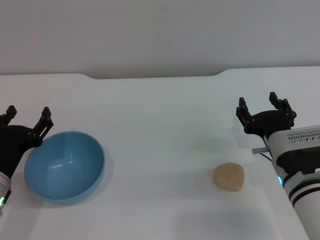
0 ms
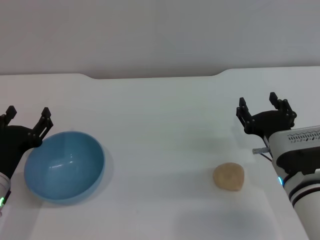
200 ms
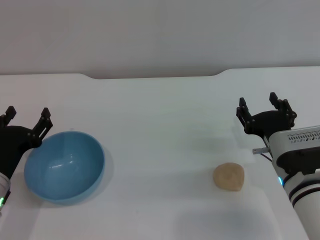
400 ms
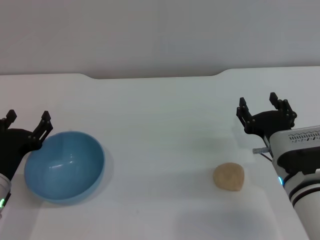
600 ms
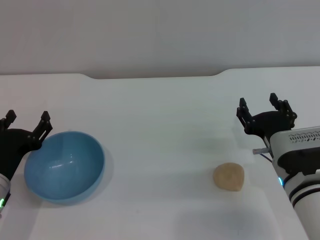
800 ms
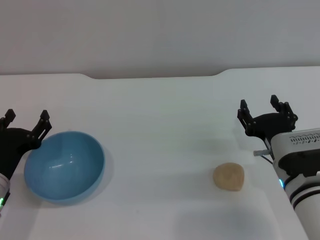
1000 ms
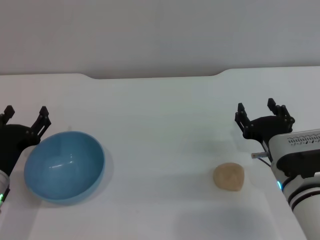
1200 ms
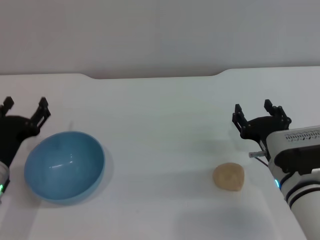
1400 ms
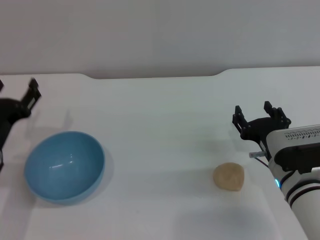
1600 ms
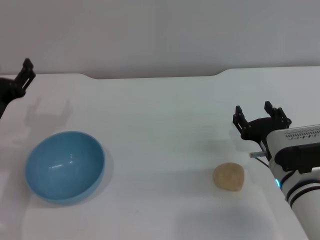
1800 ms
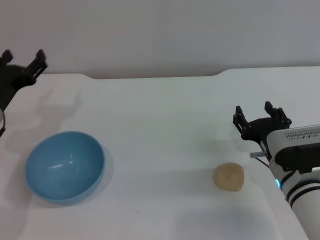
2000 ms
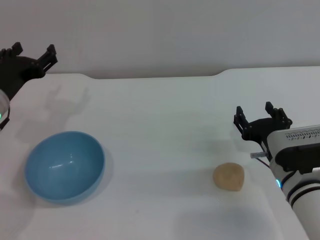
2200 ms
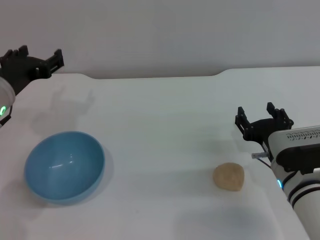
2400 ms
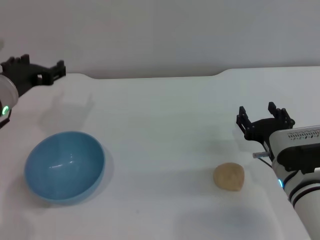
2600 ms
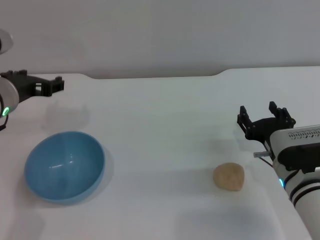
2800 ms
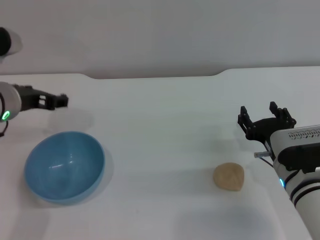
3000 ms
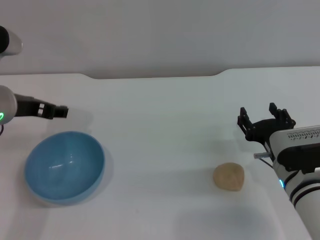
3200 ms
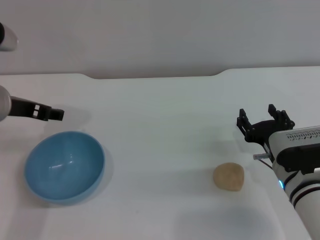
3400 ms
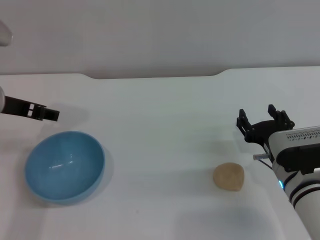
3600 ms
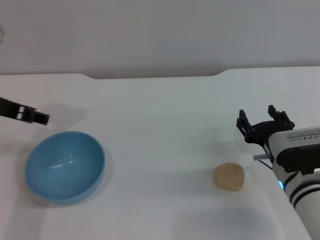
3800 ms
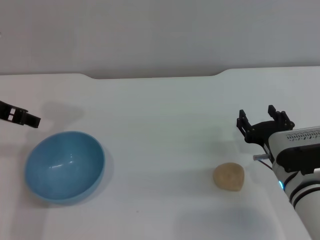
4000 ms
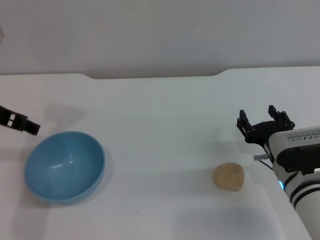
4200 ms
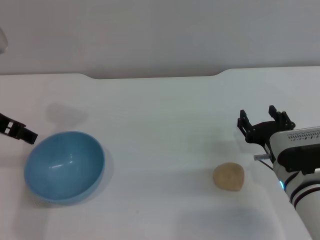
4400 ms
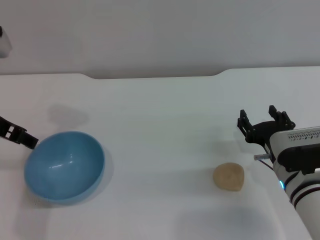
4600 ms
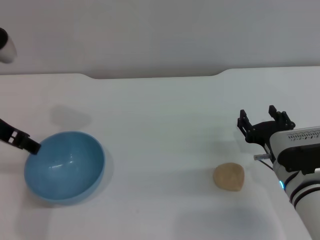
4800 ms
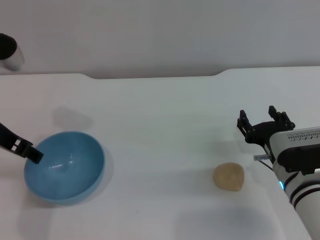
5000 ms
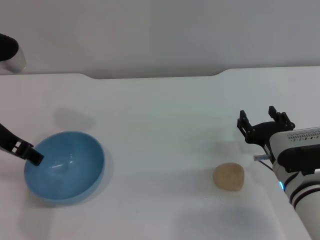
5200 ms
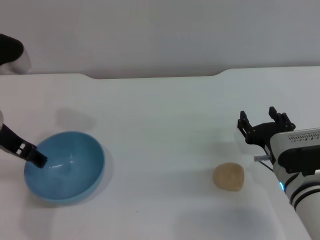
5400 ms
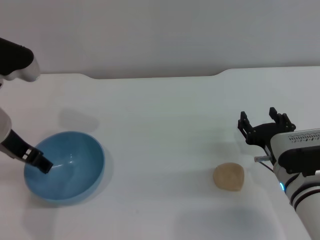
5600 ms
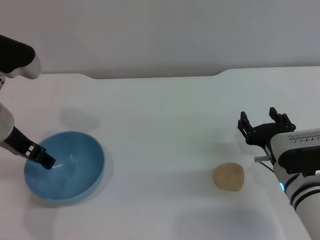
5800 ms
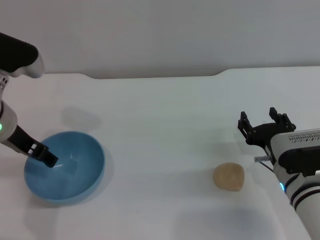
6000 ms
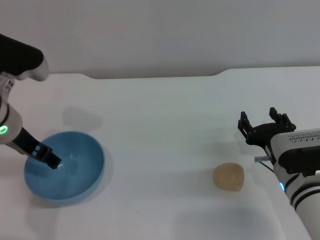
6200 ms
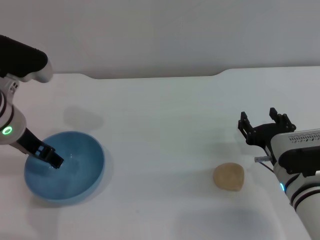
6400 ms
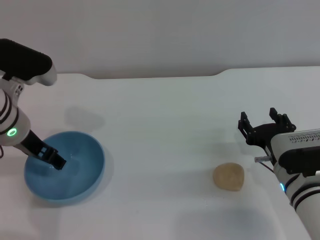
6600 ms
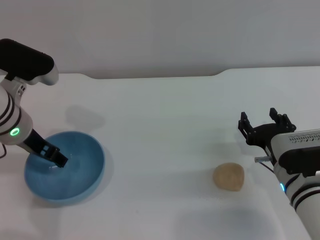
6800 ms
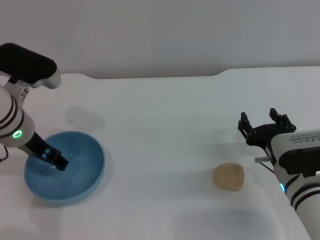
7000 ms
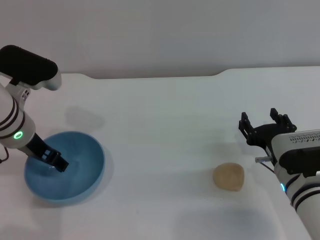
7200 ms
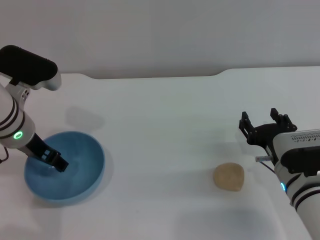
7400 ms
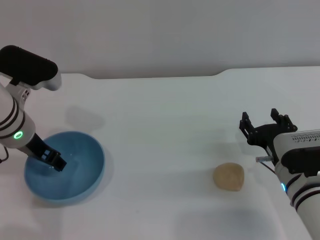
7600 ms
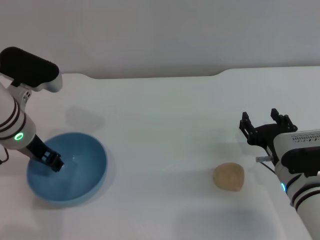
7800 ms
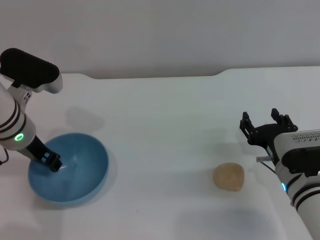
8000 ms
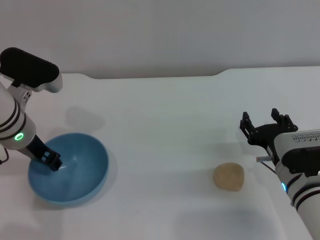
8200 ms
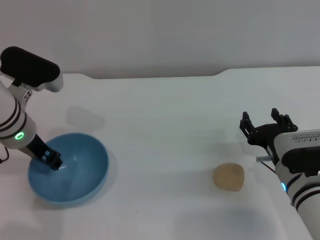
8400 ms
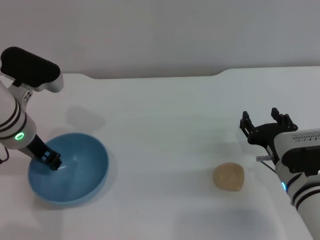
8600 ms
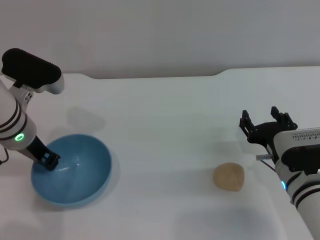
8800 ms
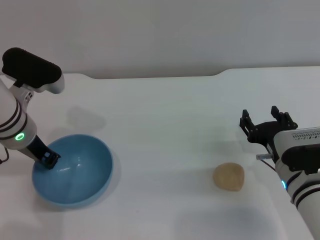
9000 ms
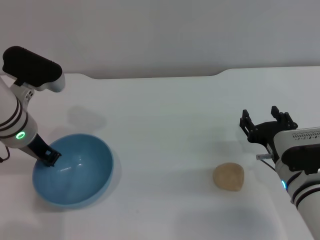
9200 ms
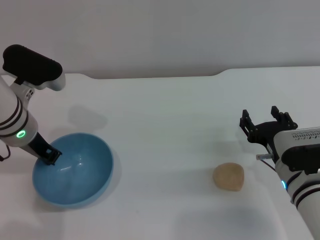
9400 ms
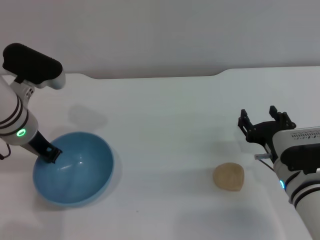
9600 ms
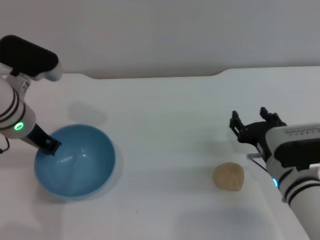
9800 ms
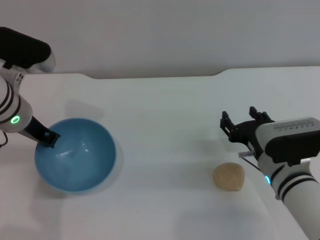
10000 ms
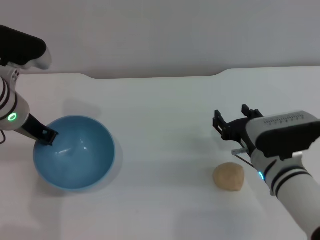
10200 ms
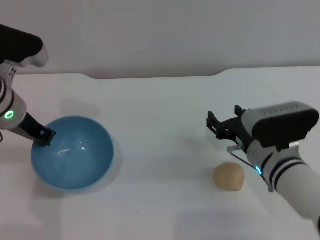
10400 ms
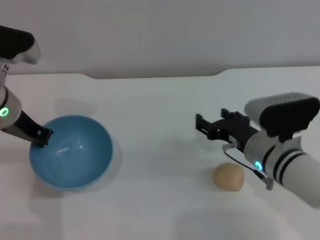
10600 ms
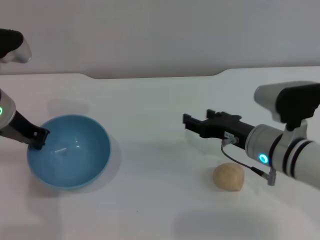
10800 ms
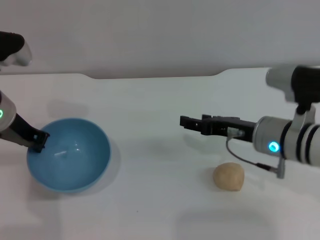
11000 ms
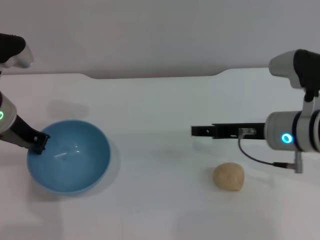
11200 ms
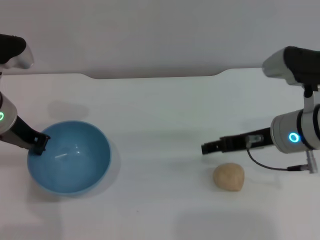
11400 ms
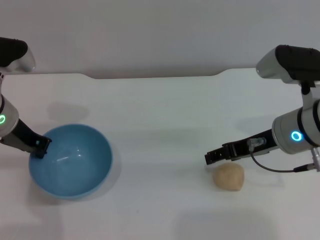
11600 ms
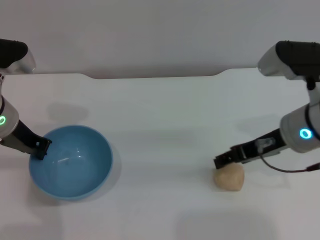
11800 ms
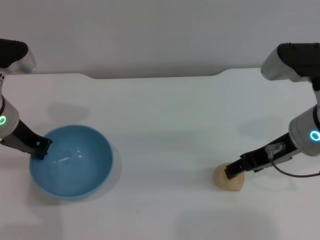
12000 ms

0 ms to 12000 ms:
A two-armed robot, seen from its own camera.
Task of the whole recording: put the egg yolk pastry into the blue bowl and pour it out repeatedly.
Step, 0 ms to 11400 ms: Pick up the bowl with the left gripper.
0 ms to 1600 ms: The grippers stay close to where they were, moving slightly.
1600 ms to 3000 ms: The left gripper shifts approximately 15 cm upward and forward.
3000 ms to 4400 ms: The left gripper changes place by some 5 cm.
4400 ms to 6000 ms: The grippers move only a little.
6000 ms to 7600 ms: The grippers make only small movements.
7600 ms to 9000 ms: The left gripper closes up.
9000 ms to 10400 ms: The right gripper ends up roughly 5 cm from where it was.
10400 ms to 12000 ms: The right gripper heads upward, covering approximately 15 cm.

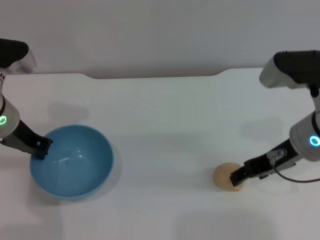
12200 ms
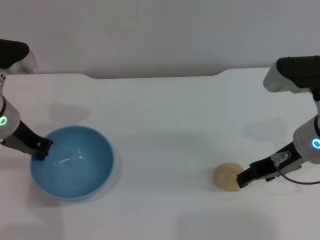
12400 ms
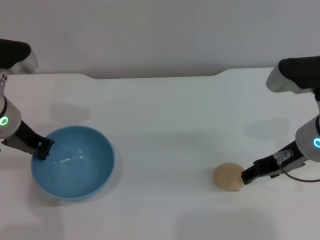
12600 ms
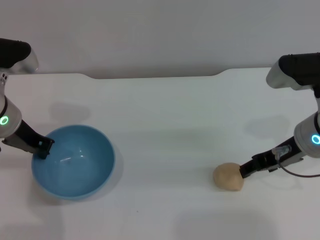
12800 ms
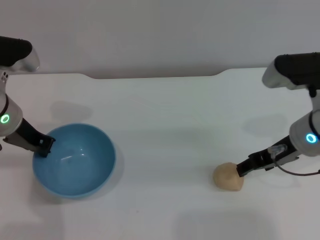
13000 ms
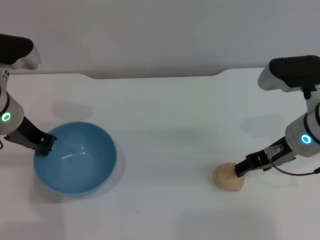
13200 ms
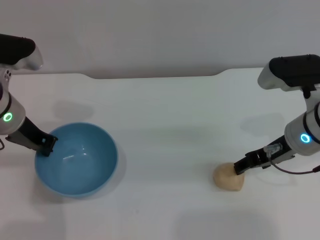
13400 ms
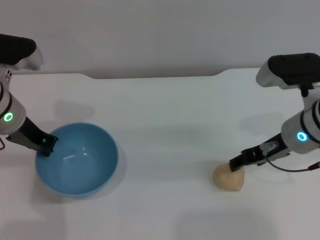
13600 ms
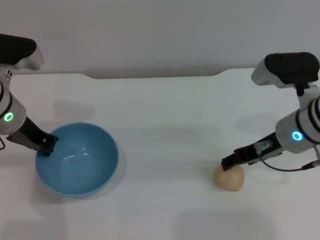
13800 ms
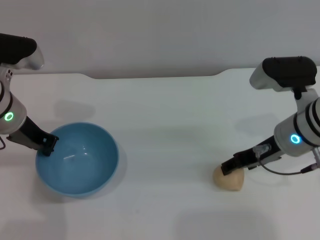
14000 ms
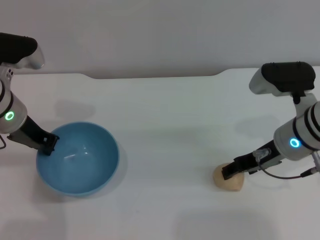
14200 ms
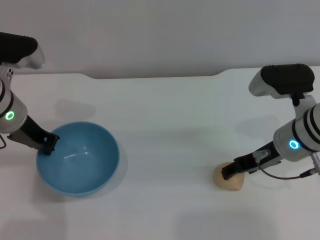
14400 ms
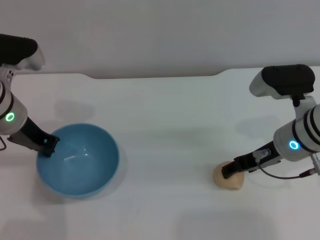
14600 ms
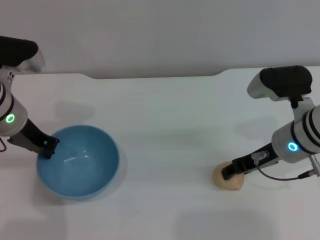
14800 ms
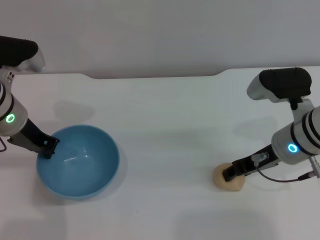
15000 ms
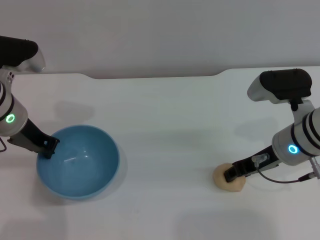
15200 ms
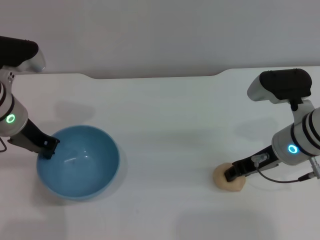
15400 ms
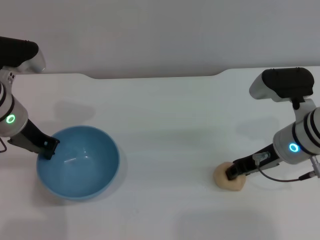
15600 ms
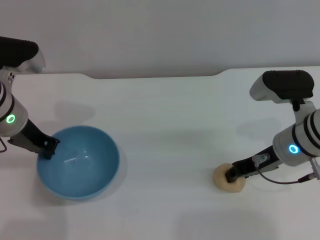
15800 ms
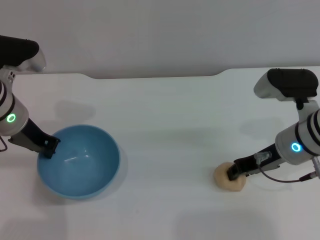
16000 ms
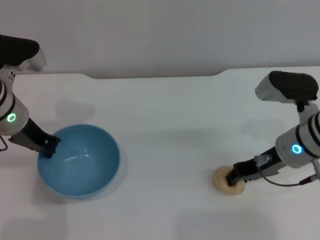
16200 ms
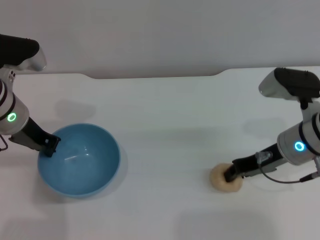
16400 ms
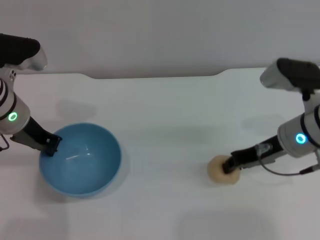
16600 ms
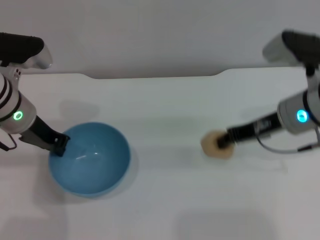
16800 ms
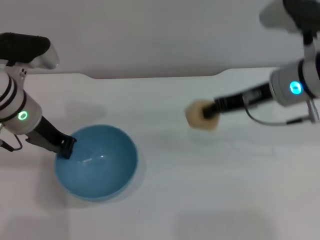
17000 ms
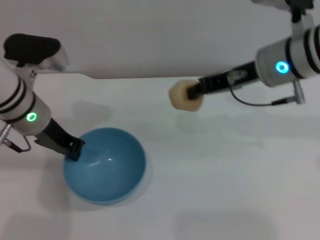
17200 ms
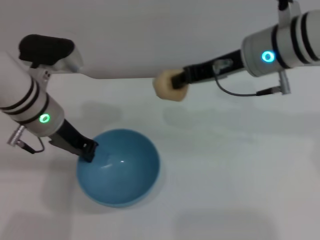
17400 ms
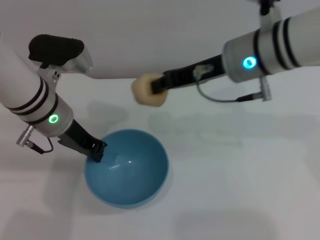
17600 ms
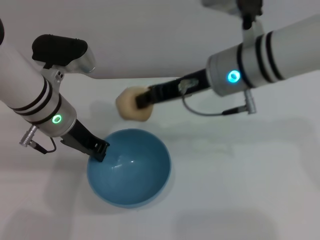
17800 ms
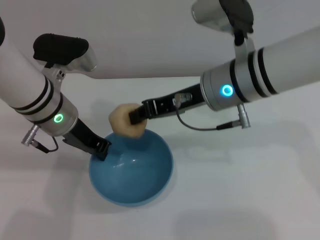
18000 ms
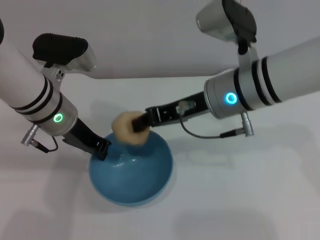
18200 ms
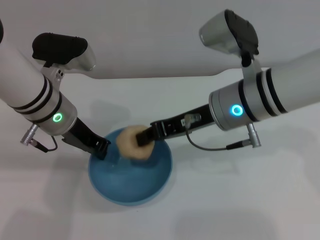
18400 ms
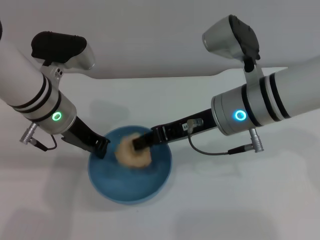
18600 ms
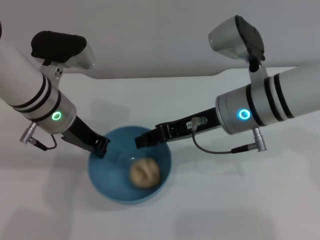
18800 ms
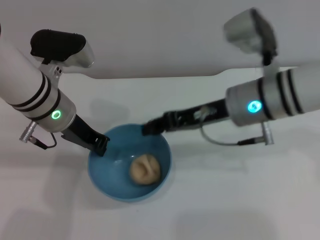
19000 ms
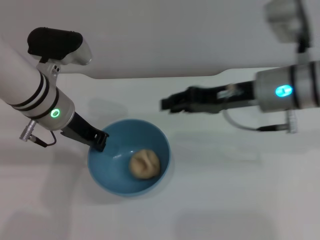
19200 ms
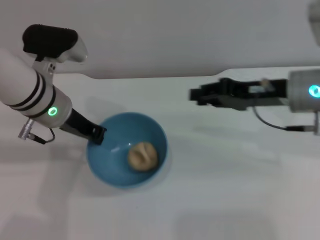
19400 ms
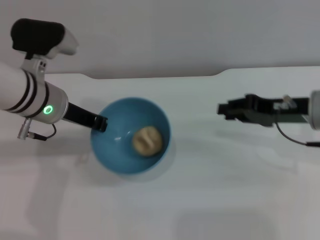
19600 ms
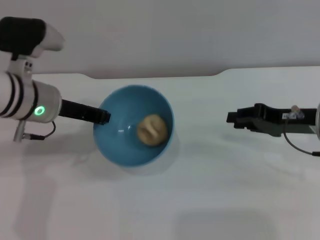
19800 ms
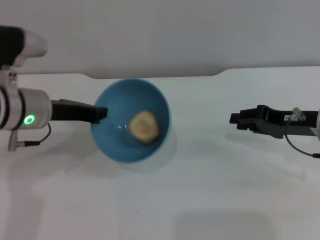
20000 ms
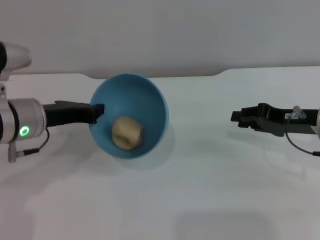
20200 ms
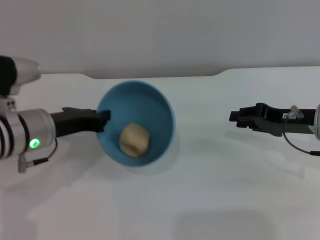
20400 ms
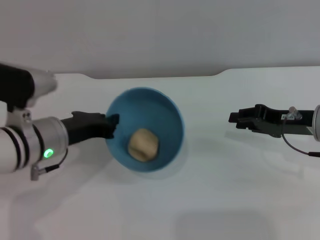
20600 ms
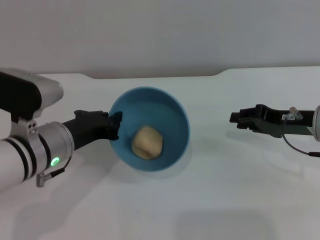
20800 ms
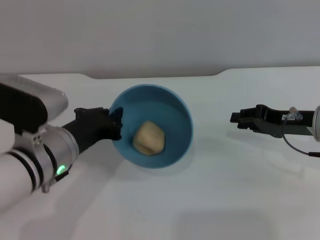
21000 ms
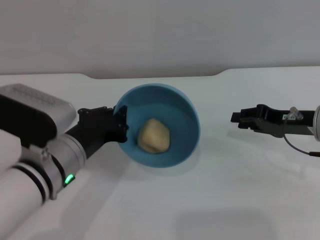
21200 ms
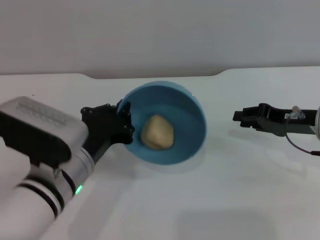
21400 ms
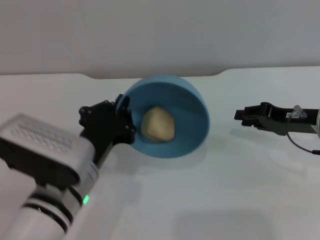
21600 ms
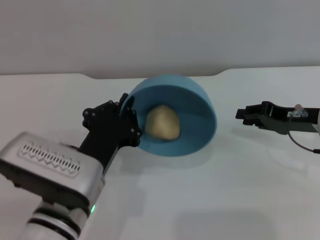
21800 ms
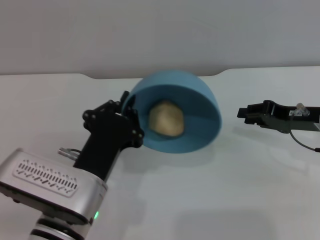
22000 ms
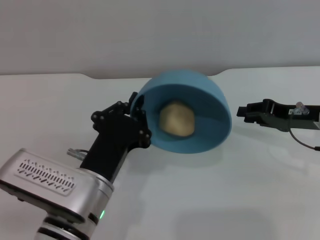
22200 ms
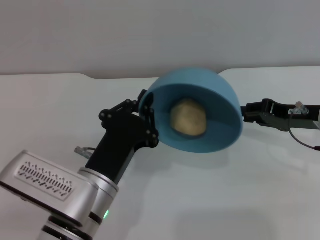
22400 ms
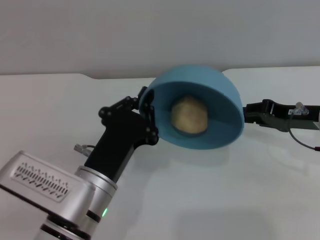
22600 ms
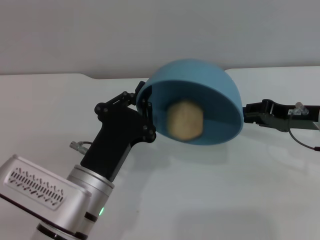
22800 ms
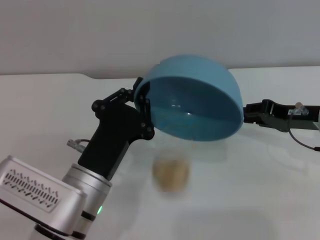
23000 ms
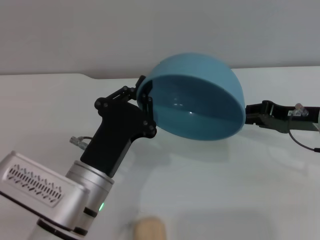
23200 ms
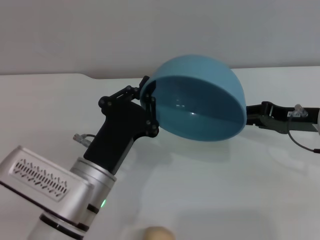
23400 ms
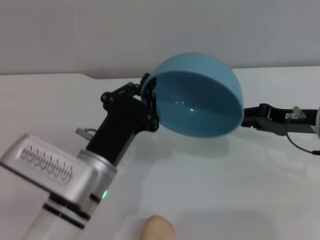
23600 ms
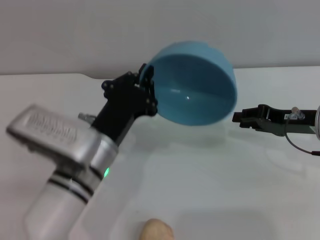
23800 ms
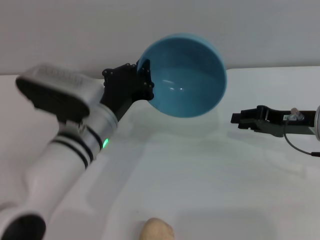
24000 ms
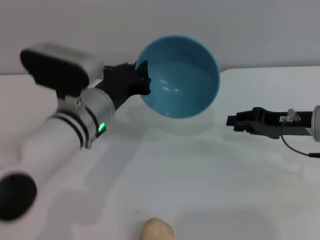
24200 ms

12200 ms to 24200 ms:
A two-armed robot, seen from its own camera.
Task of the whole recording: put the egg yolk pastry into the blue bowl and pour it out repeatedly.
Step, 12200 ms to 17000 ms: Pick up the egg yolk pastry with the right gripper.
Step, 17200 ms to 20400 ms: Place the egg yolk pastry into the bowl.
12200 ms to 13800 ms: The grippers move only a little.
13800 ms to 15200 ms: The right gripper closes.
15200 ms to 16600 ms: The right gripper closes.
16600 ms to 18200 ms: The left gripper heads to the right, covering some 5 cm. Meanwhile the right gripper heads to the left and upward, covering roughly 10 cm.
18200 ms to 19800 ms: The right gripper moves to the right, some 15 cm.
19800 ms to 21200 ms: The left gripper travels backward by about 10 cm.
21200 ms to 22600 ms: The left gripper shifts roughly 5 cm backward.
22600 ms to 24200 ms: The left gripper goes approximately 10 cm forward.
